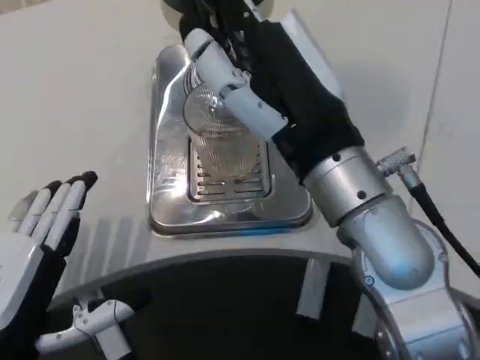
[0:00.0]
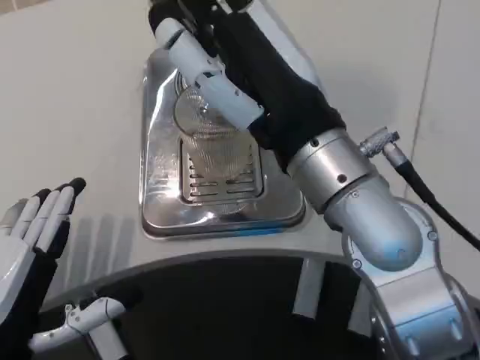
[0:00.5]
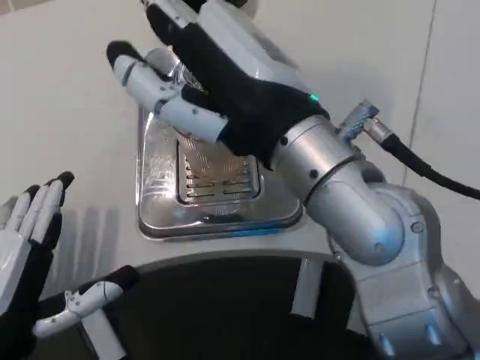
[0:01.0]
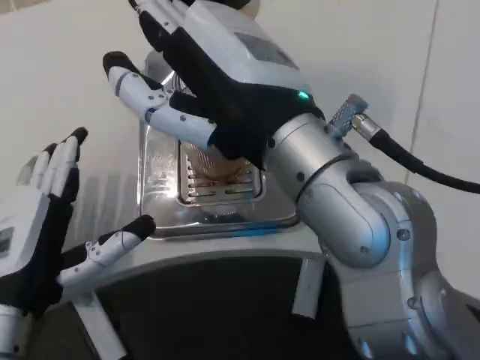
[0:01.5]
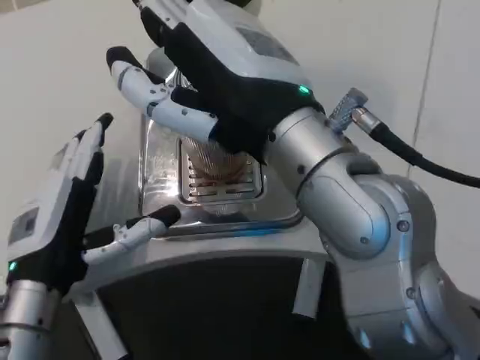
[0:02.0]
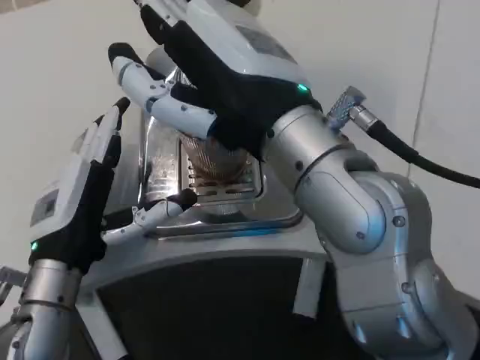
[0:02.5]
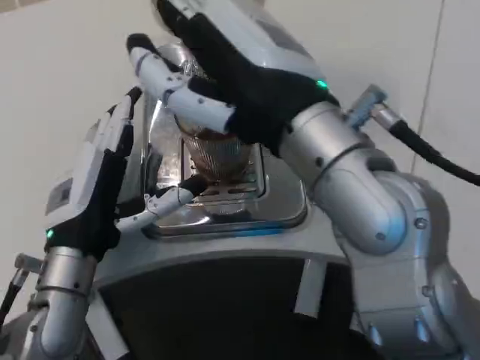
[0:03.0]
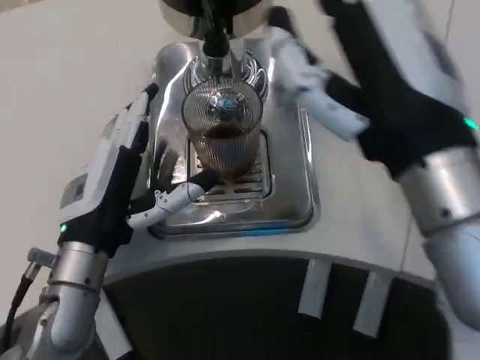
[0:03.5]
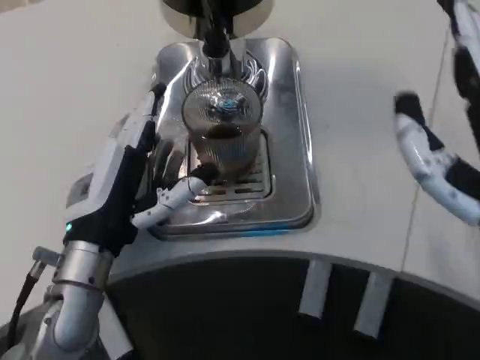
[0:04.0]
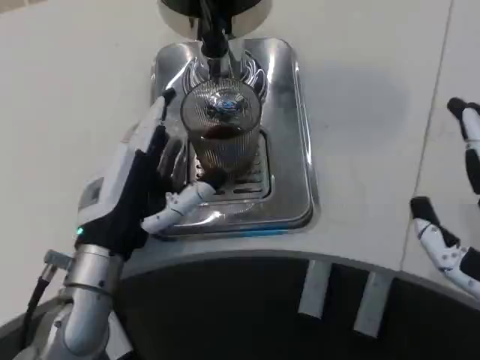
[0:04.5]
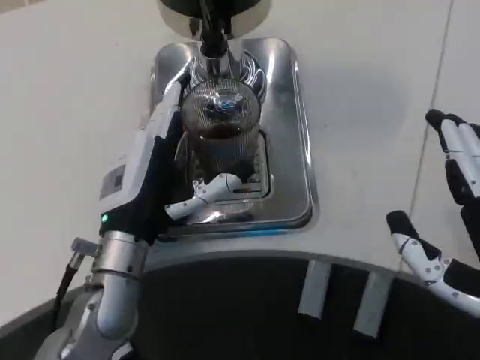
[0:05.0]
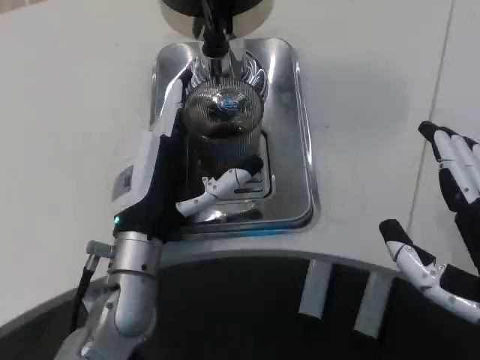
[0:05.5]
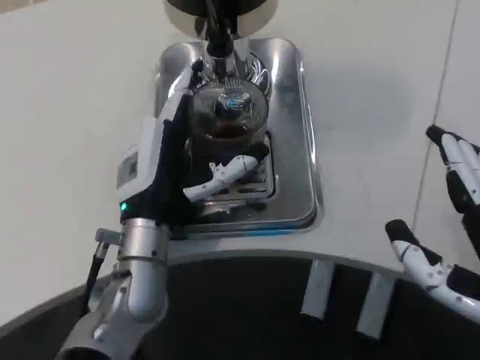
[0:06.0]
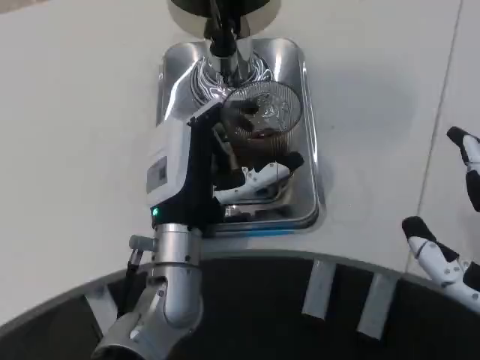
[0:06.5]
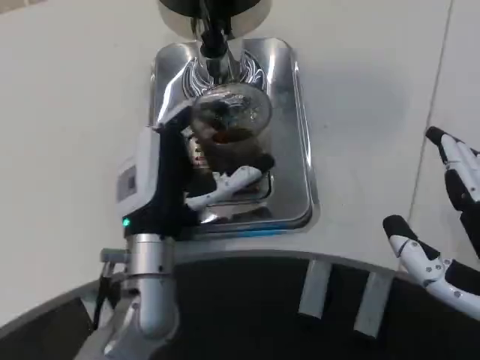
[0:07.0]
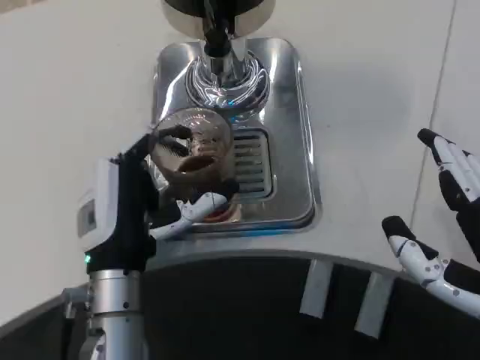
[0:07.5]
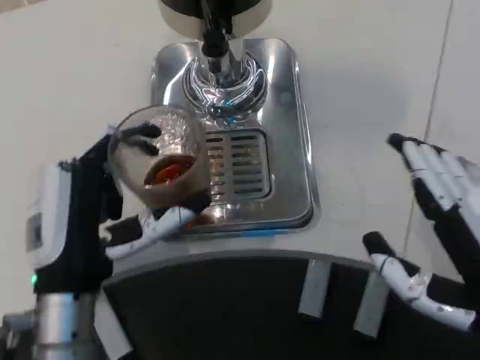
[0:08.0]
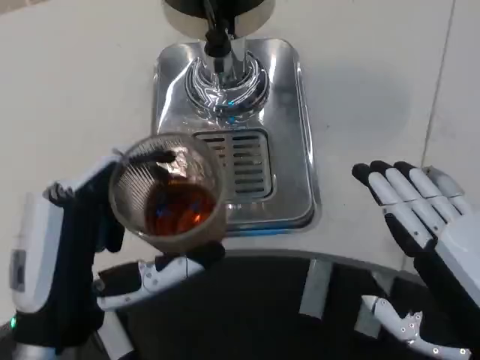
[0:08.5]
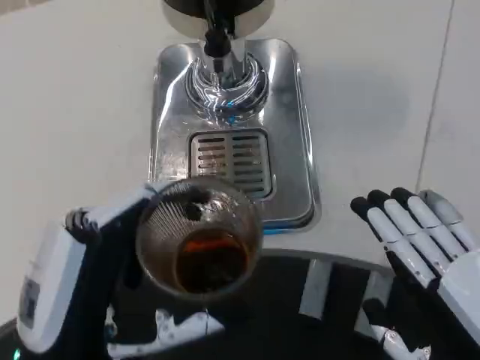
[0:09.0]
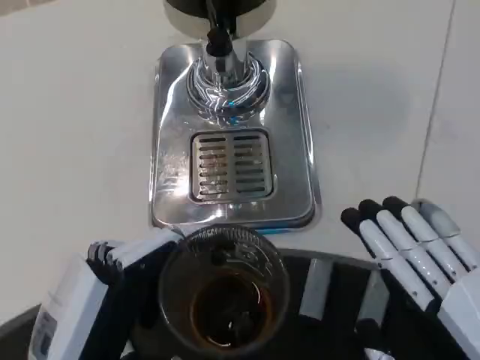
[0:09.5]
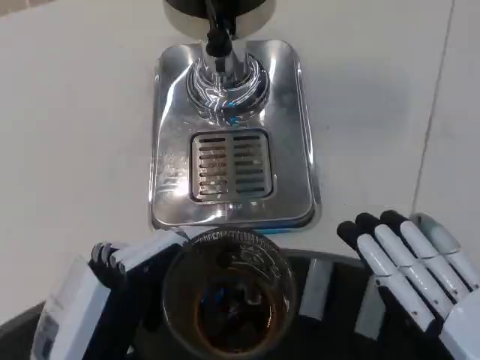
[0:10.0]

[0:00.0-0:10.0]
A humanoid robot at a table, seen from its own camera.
Task of the whole recording: Grasp the cup under the faucet to collect the drink, then remove the cup.
0:00.0 to 0:02.0: The right hand changes place by approximately 5 cm, while the left hand goes approximately 10 cm forward.
0:02.0 to 0:04.0: The left hand ends up some 5 cm from where it was, while the right hand moves to the right, downward and backward, approximately 15 cm.
0:04.0 to 0:06.0: The left hand moves to the right, about 5 cm.
0:06.0 to 0:08.0: The left hand moves backward and to the left, some 10 cm.
0:08.0 to 0:10.0: The right hand travels backward by roughly 5 cm, while the left hand travels backward by some 10 cm.

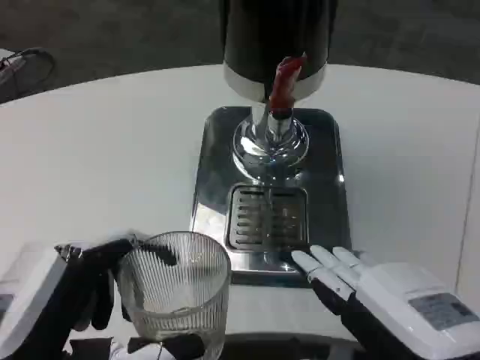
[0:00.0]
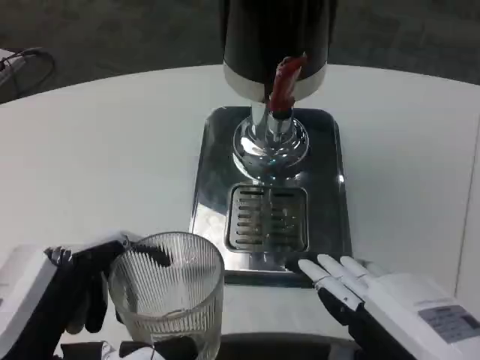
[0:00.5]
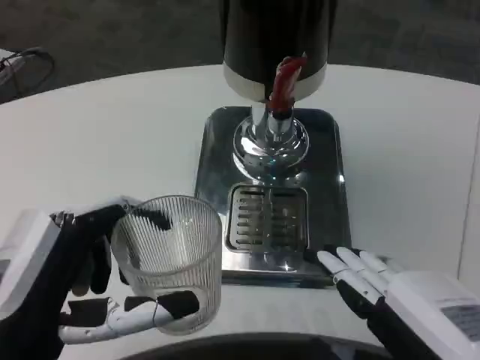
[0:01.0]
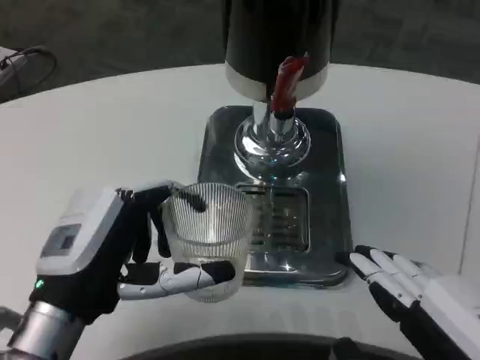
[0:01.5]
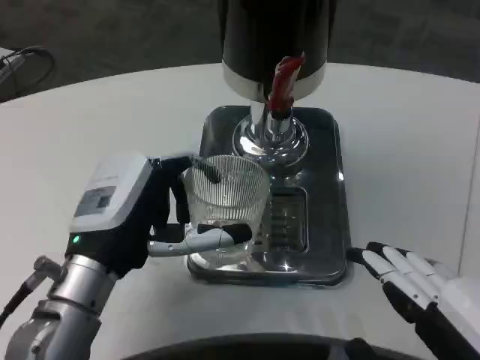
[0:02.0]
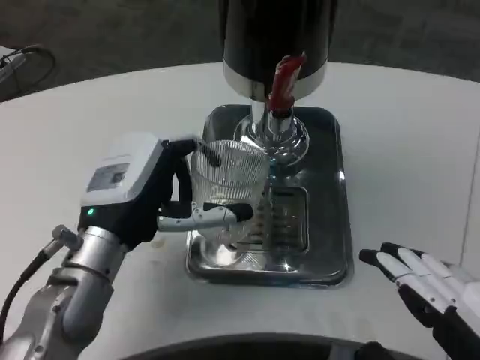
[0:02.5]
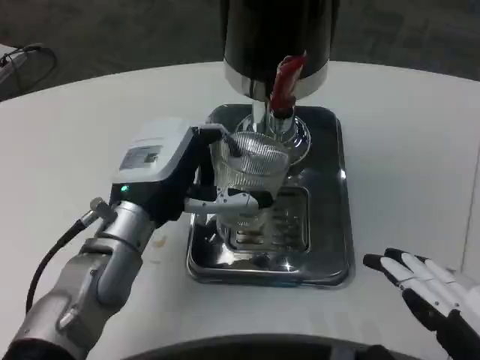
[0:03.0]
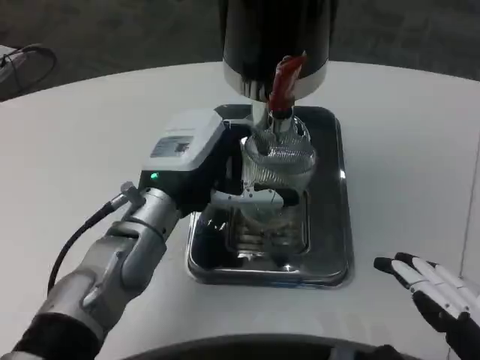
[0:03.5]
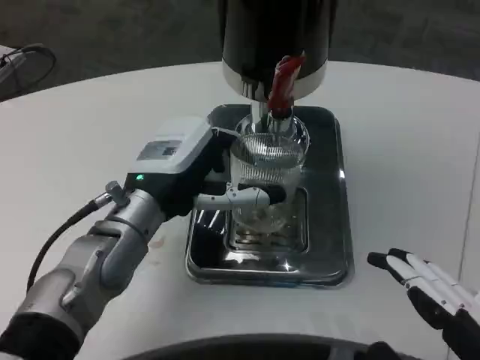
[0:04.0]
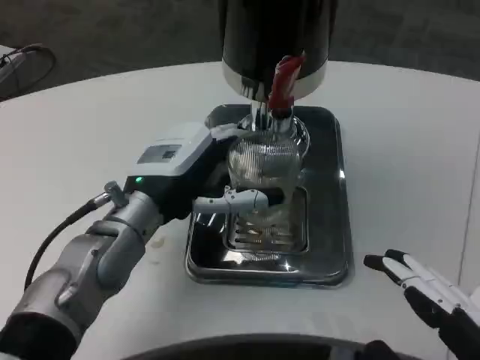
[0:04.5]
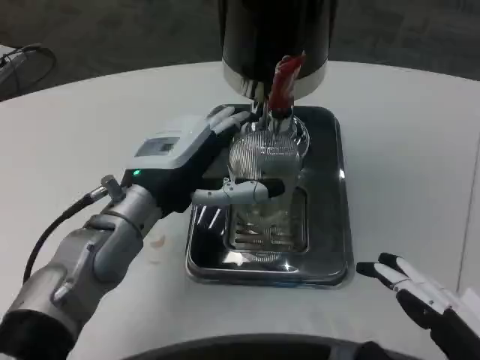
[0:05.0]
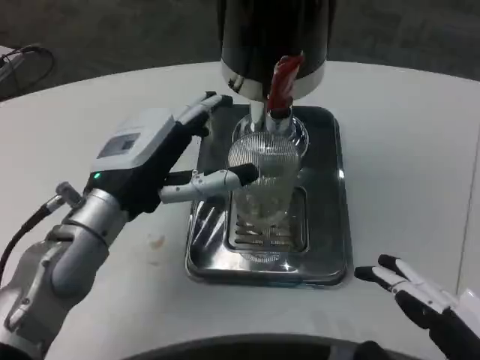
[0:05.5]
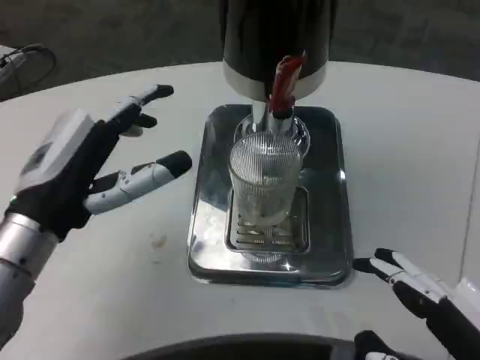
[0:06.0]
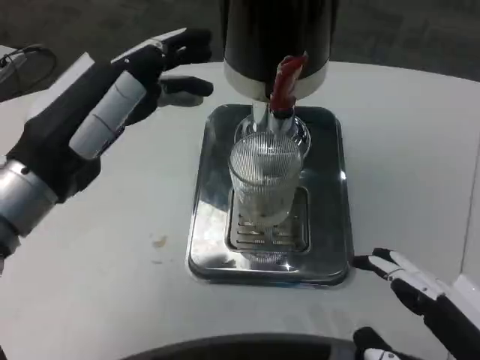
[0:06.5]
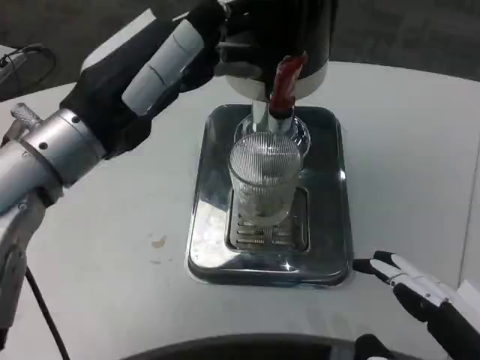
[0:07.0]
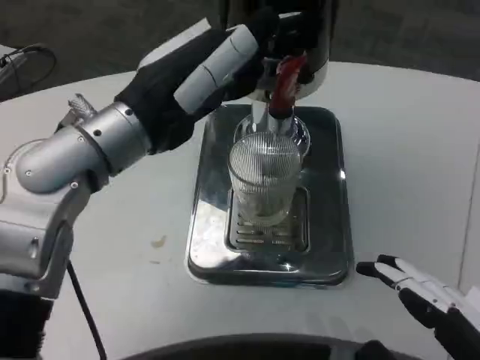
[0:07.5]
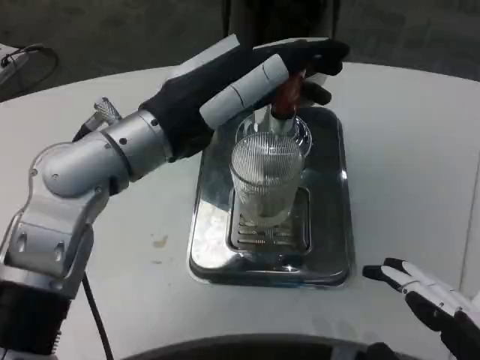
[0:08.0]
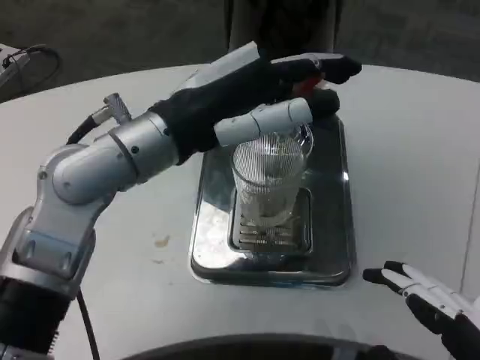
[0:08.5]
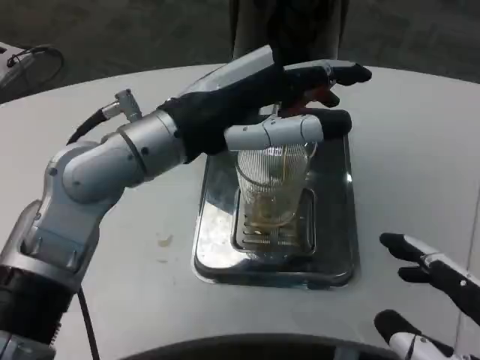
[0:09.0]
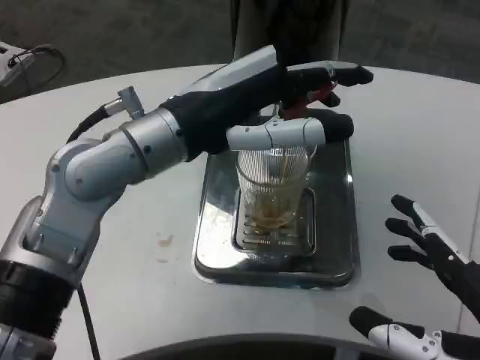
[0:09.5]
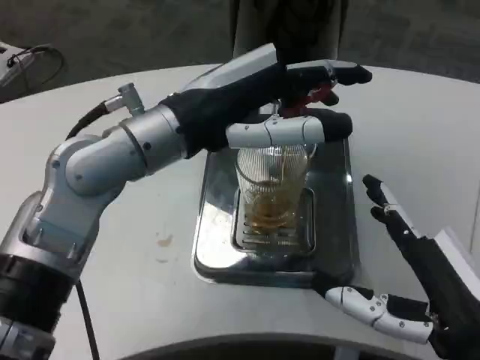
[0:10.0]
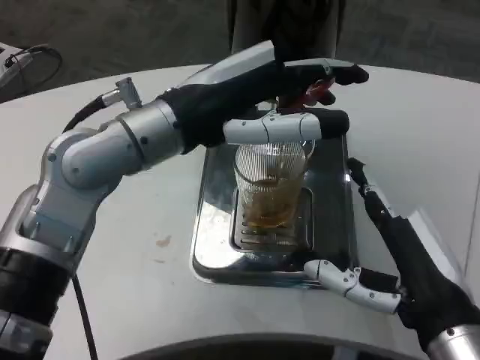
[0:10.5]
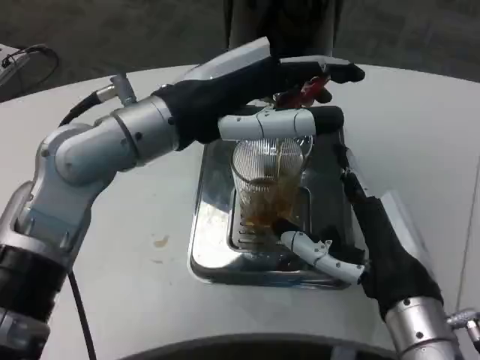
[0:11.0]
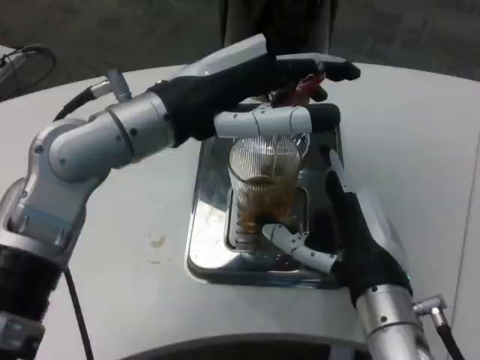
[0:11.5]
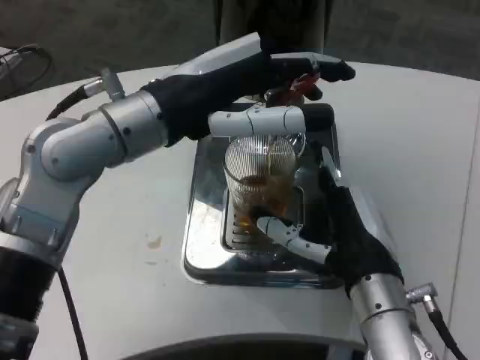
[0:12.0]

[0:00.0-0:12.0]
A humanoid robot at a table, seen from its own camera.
Task of the whole recording: Grasp the cup under the faucet to collect the drink, then remove the cup.
0:00.0 to 0:02.0: The left hand moves forward, approximately 15 cm.
0:02.0 to 0:04.0: The left hand heads forward, covering approximately 5 cm.
0:04.0 to 0:06.0: The left hand is displaced to the left and backward by approximately 10 cm.
0:06.0 to 0:08.0: The left hand travels upward and to the right by roughly 10 cm.
0:08.0 to 0:10.0: The right hand goes about 10 cm forward.
0:10.0 to 0:12.0: The right hand is displaced forward and to the left by about 10 cm.

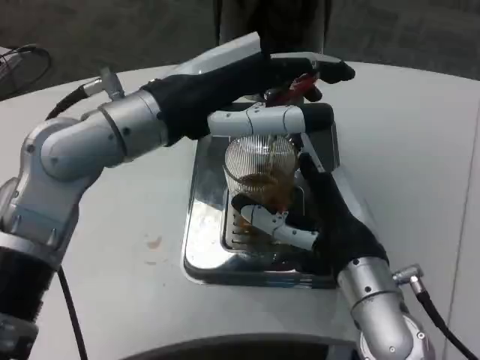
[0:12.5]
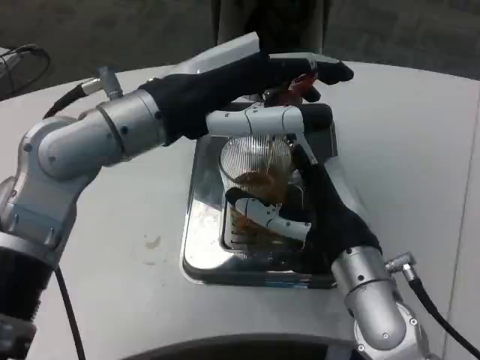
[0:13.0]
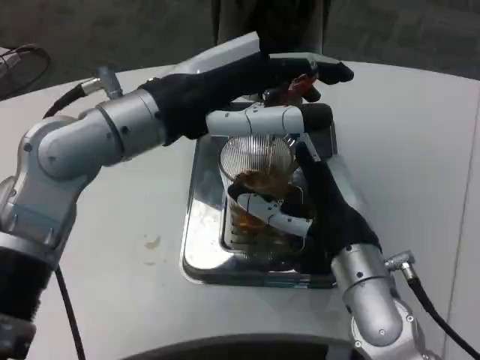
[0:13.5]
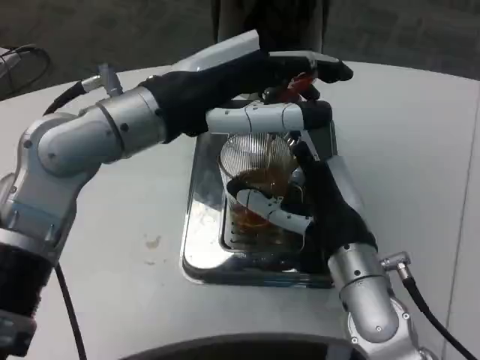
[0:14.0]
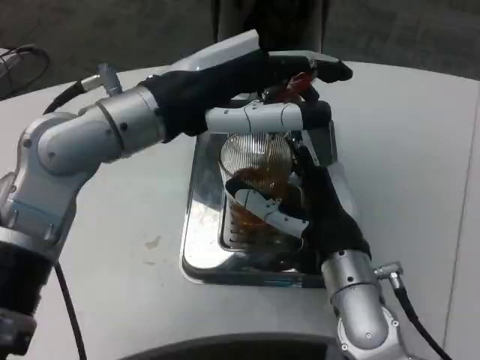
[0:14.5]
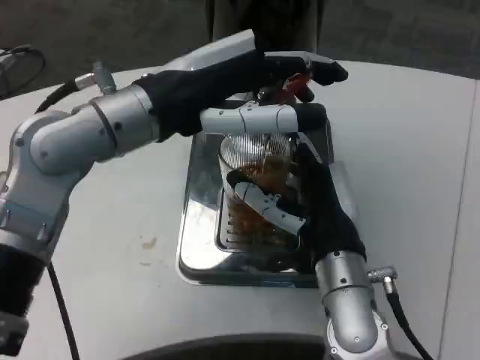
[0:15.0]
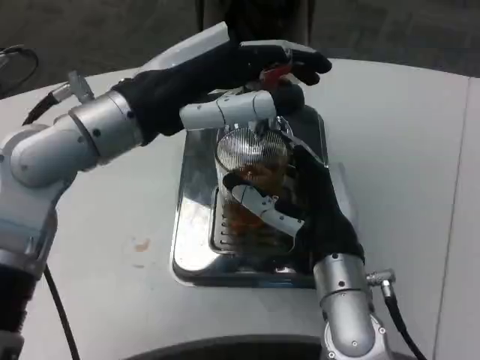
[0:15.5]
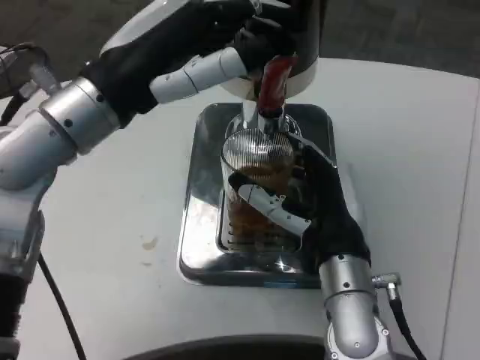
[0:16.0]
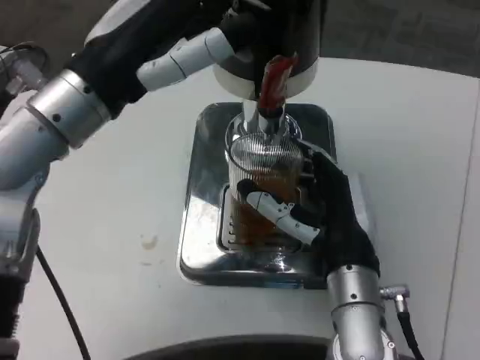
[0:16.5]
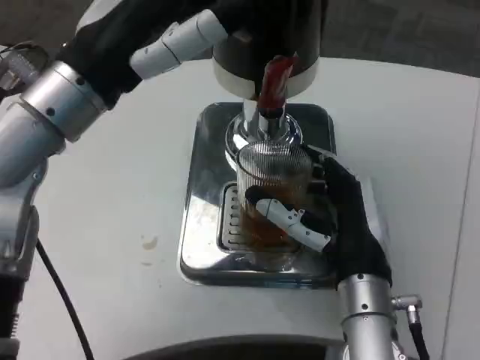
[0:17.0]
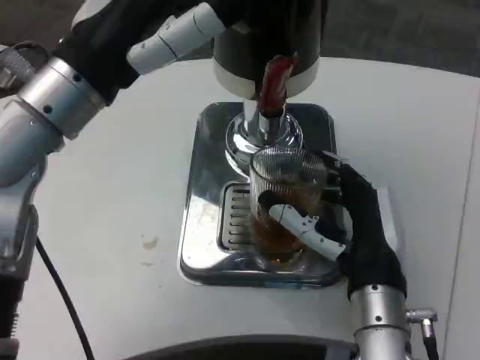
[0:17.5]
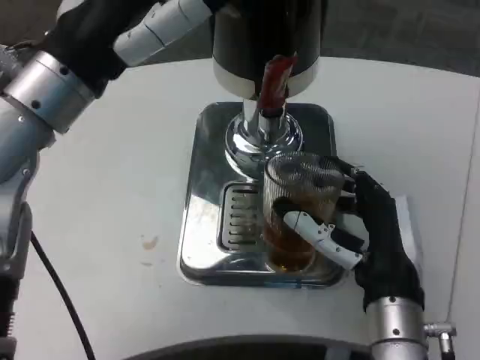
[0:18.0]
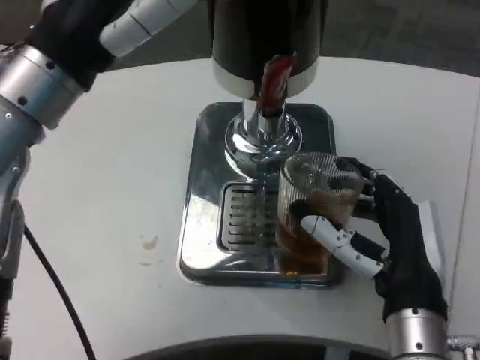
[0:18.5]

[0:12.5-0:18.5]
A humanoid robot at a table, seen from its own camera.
Task of the whole recording: Grasp the cup under the faucet to collect the drink, then remove the cup.
0:12.5 to 0:14.5: The hands stay close to where they were, moving slightly.
0:16.5 to 0:18.5: The right hand shifts by some 5 cm.
